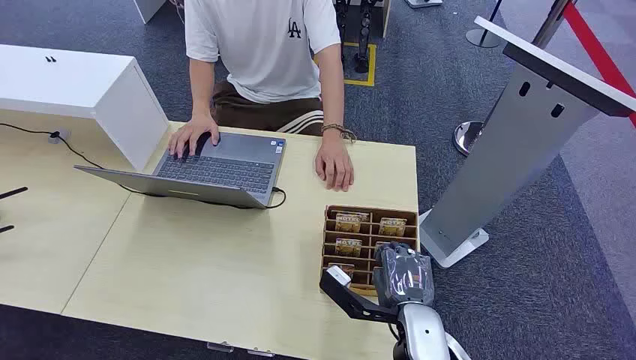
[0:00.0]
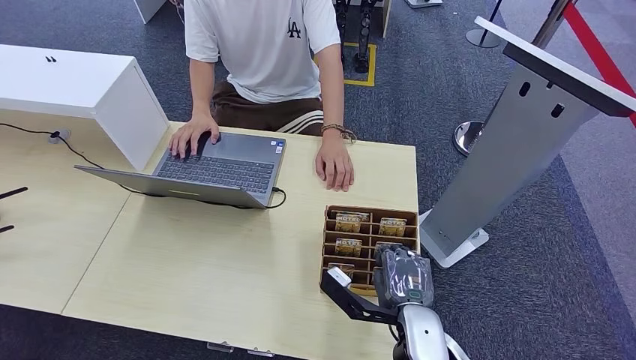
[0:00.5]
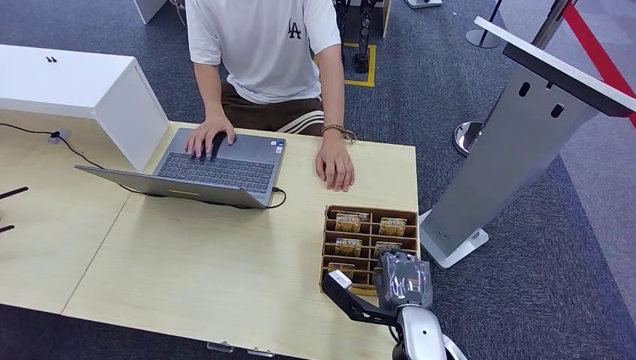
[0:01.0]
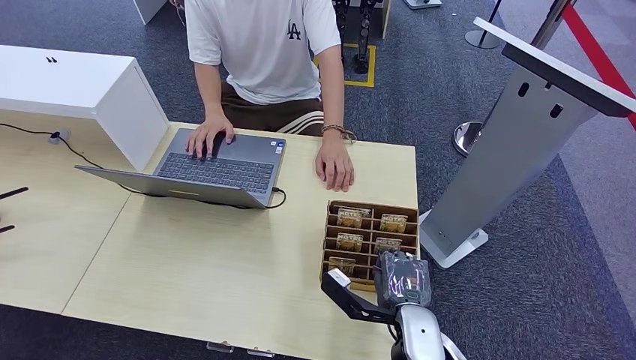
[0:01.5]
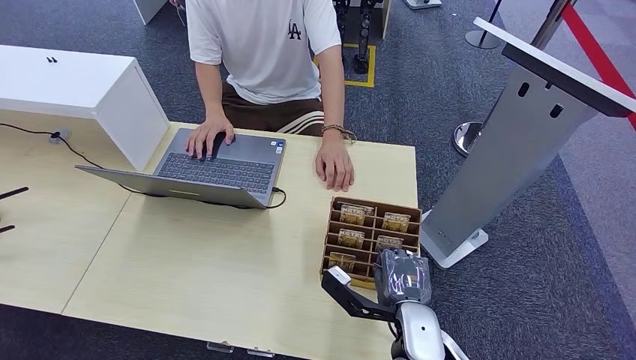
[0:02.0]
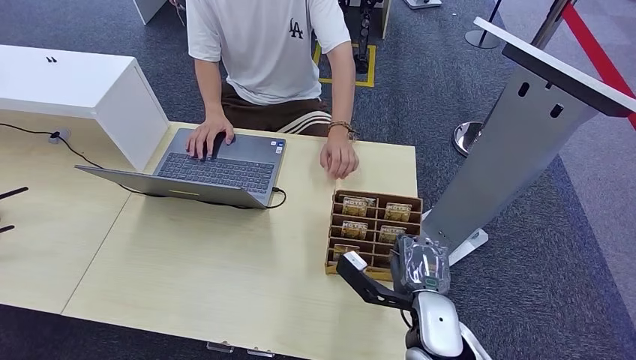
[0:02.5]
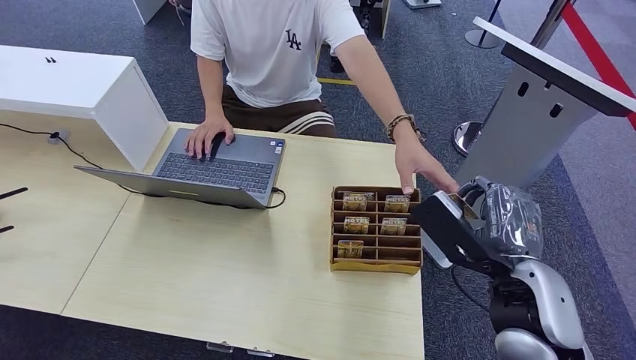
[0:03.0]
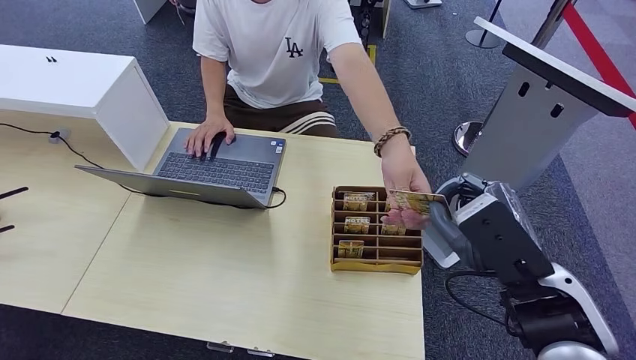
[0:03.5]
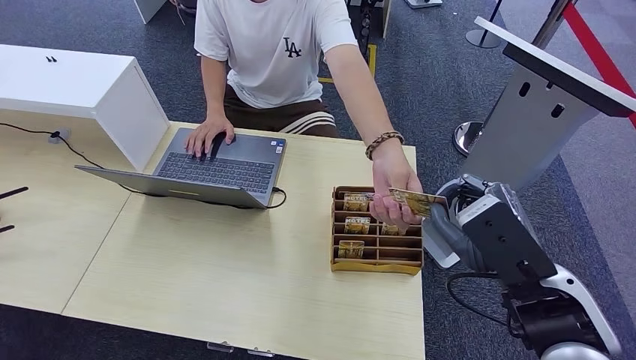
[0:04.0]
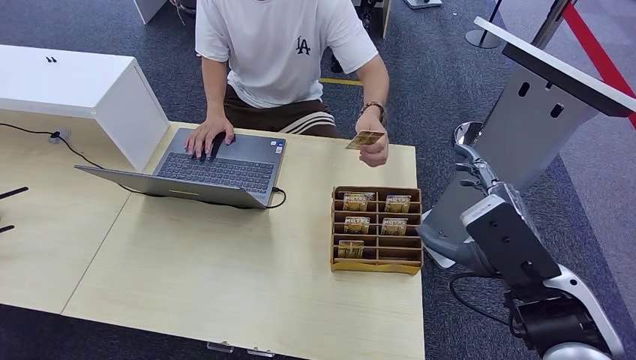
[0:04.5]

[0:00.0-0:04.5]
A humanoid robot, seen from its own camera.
Step, 0:00.0 to 0:02.5: Pick up the key card from the card box.
Step, 0:03.0 to 0:04.0: Hand the key card to the target.
0:02.0 to 0:04.5: The right hand is displaced upward and to the right by approximately 20 cm.

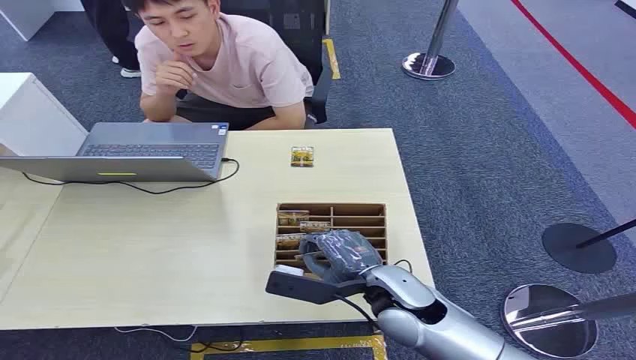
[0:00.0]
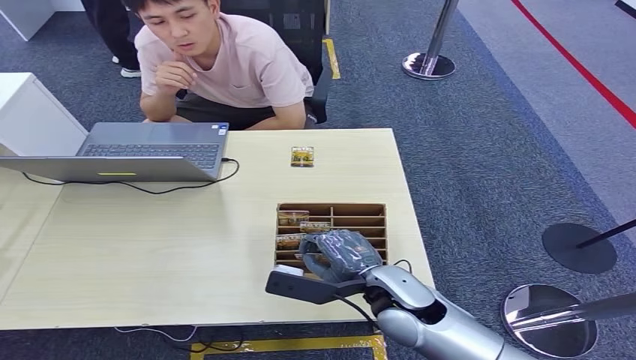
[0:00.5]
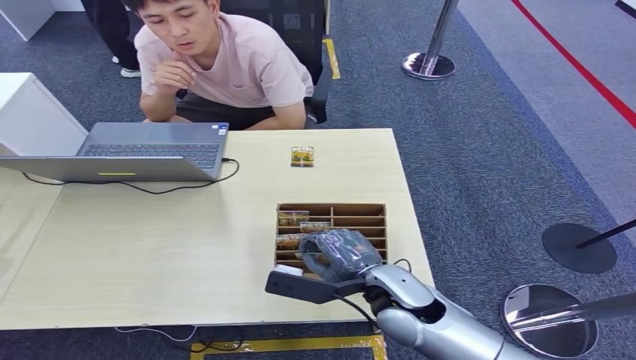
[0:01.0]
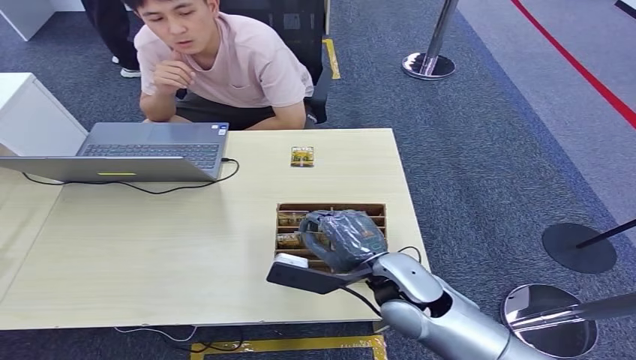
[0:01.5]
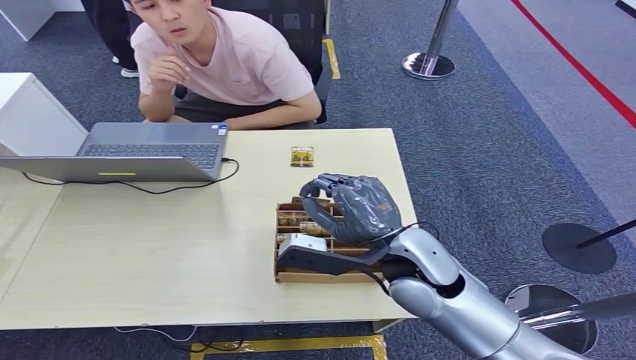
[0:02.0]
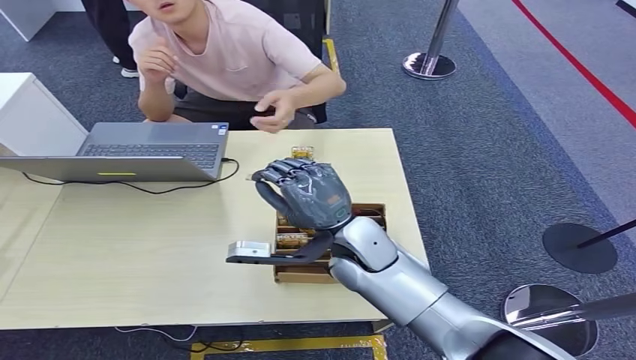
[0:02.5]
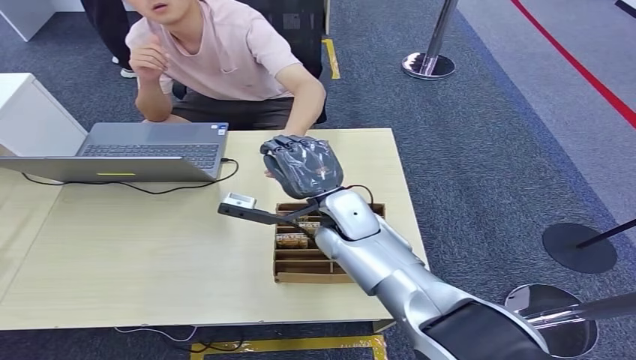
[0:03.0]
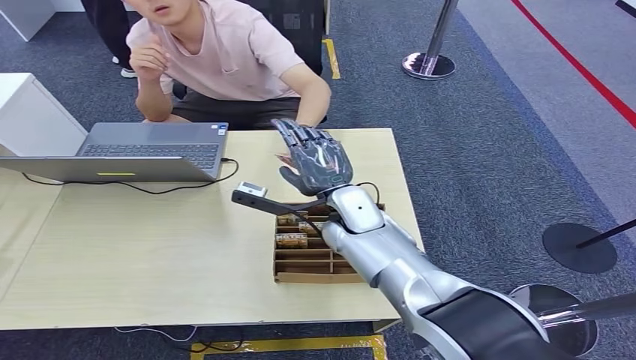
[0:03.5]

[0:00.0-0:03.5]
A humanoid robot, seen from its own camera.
Step, 0:00.0 to 0:02.0: Pick up the key card from the card box.
Step, 0:02.5 to 0:03.5: Hand the key card to the target.
0:02.0 to 0:03.5: The right hand shifts some 15 cm forward and to the left.
